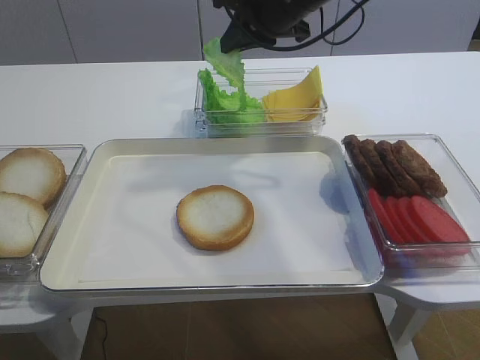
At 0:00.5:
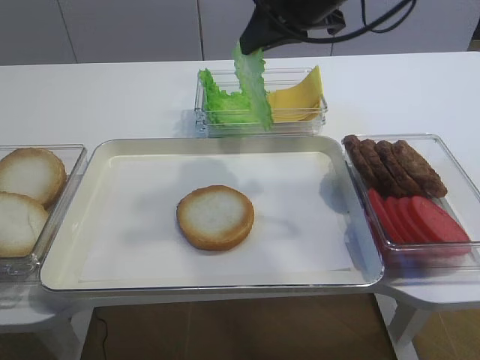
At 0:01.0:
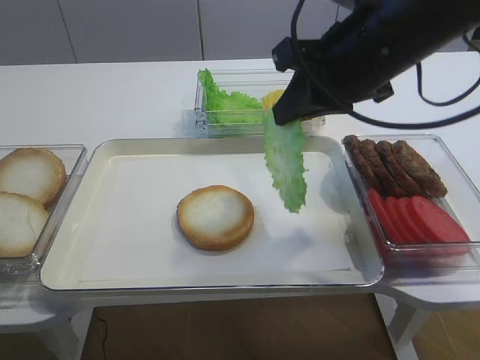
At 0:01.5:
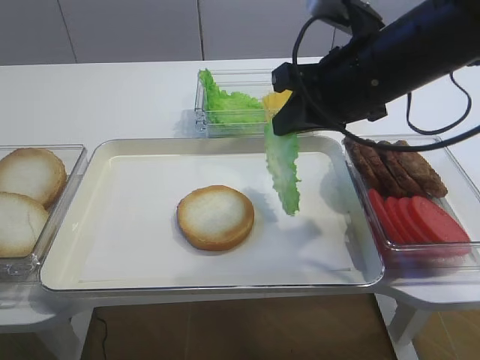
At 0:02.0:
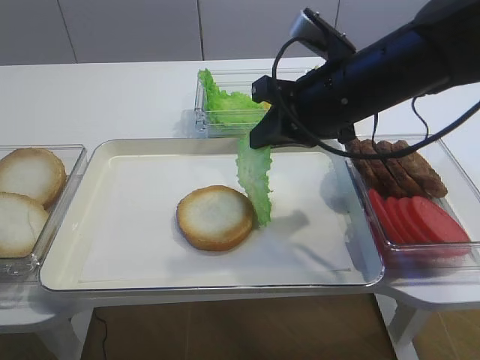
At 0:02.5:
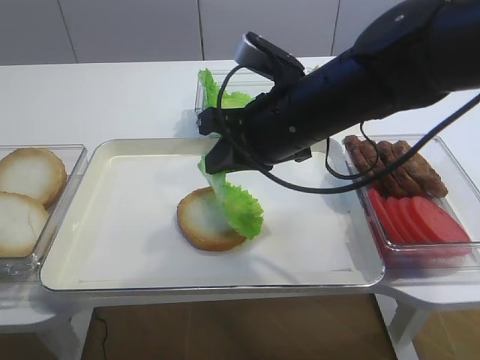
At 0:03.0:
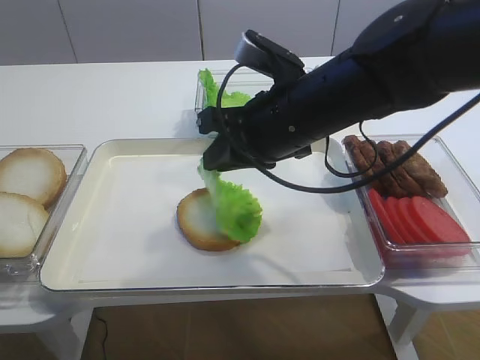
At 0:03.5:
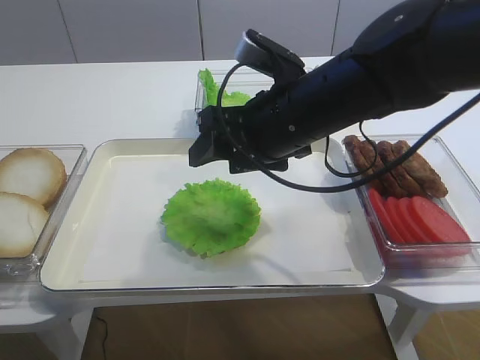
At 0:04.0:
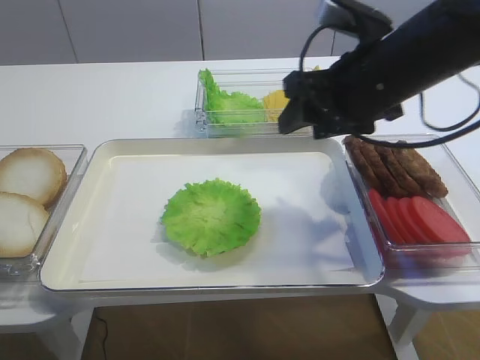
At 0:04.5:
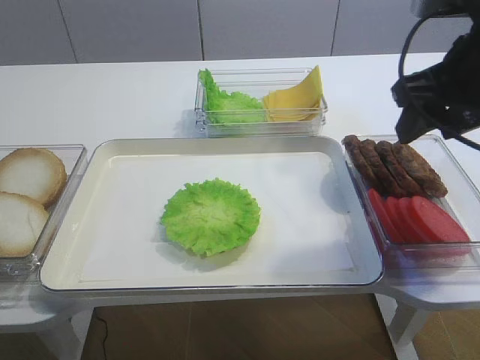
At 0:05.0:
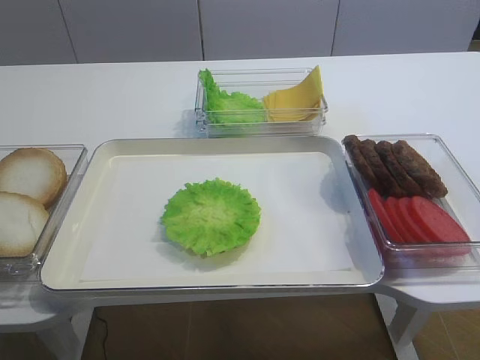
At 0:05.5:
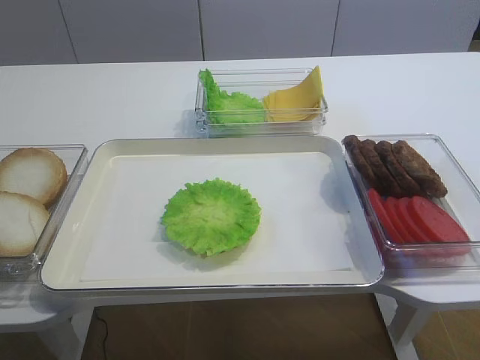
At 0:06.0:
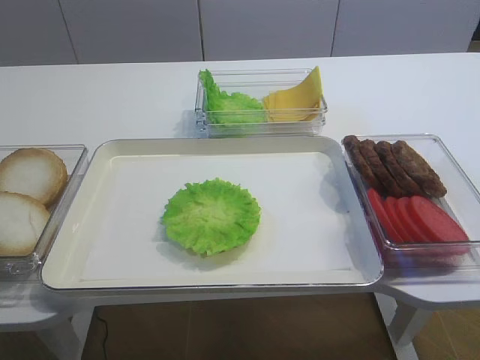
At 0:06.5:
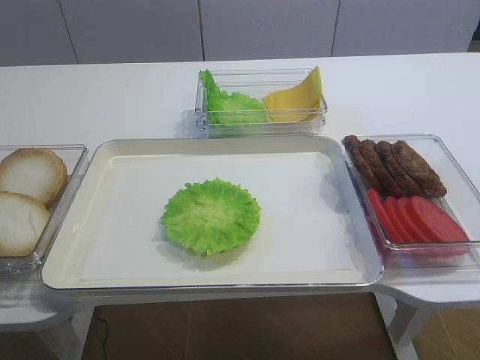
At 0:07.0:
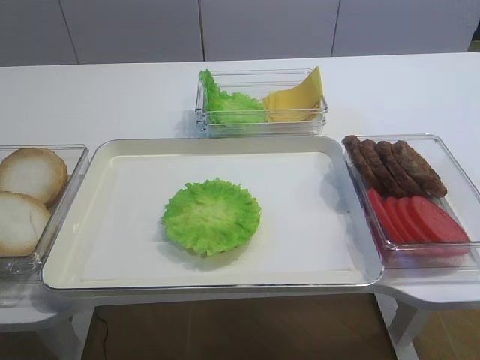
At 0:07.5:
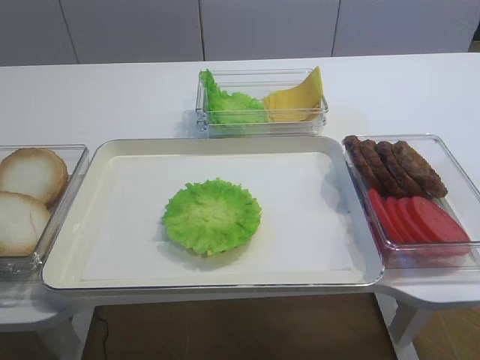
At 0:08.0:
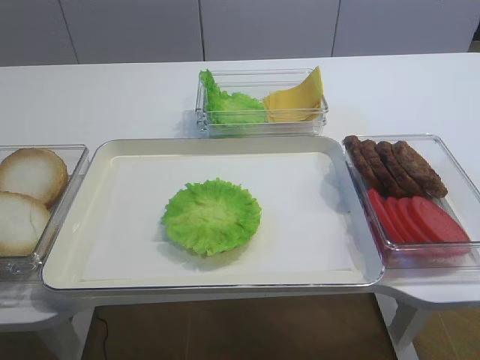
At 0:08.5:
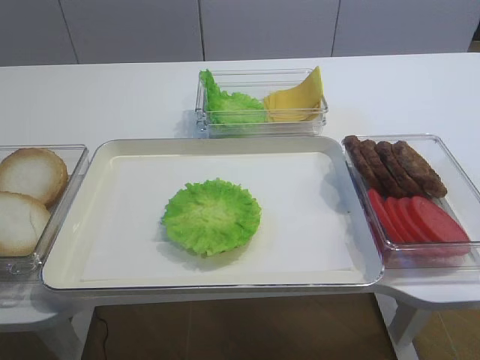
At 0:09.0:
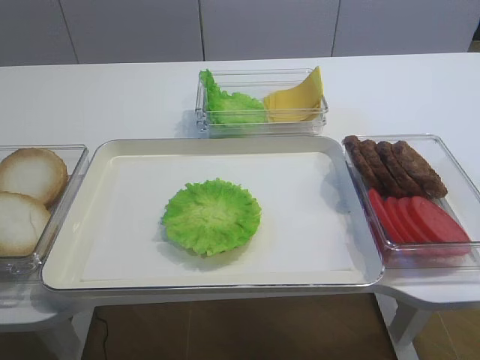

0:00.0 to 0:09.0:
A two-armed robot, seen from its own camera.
Step, 0:00.0 to 0:03.5: Place the lettuce leaf on the bread slice with the right gripper.
0:00.0 to 0:02.0: The right gripper shifts some 15 cm backward and downward.
0:02.0 to 0:04.5: The right gripper travels to the right and upward by some 10 cm, and opens up.
0:04.5 to 0:07.0: The right gripper heads backward, covering about 25 cm.

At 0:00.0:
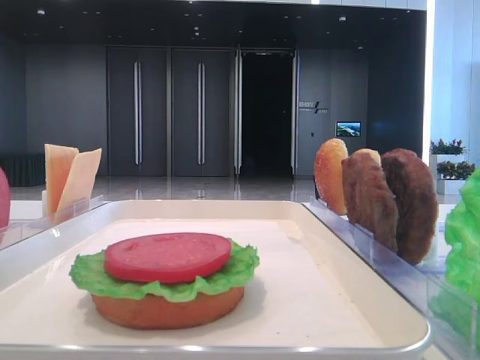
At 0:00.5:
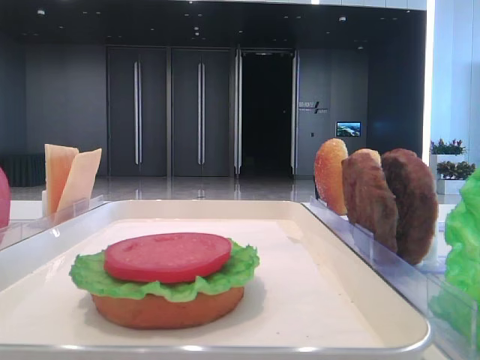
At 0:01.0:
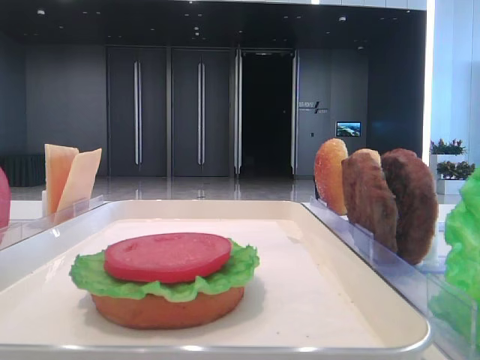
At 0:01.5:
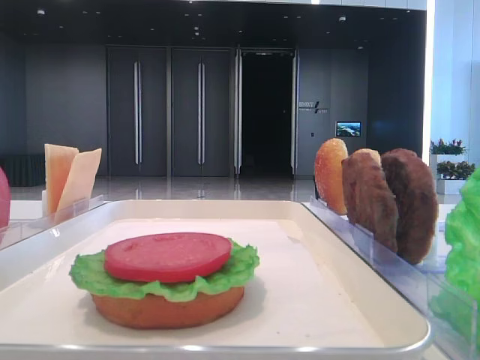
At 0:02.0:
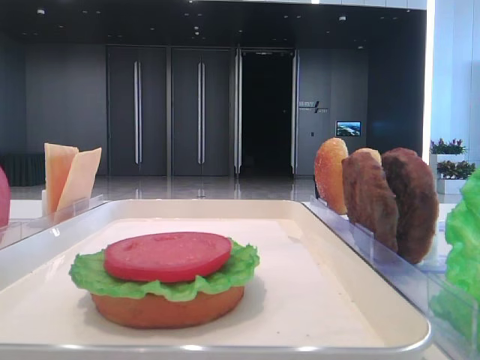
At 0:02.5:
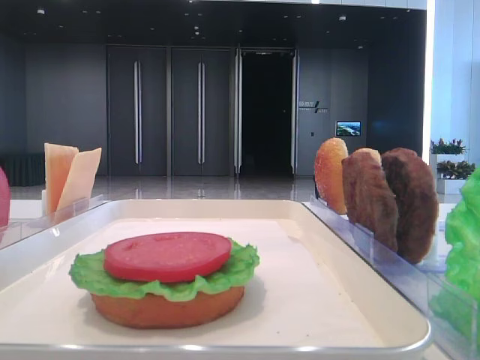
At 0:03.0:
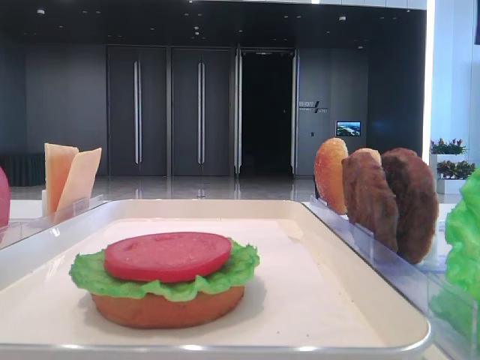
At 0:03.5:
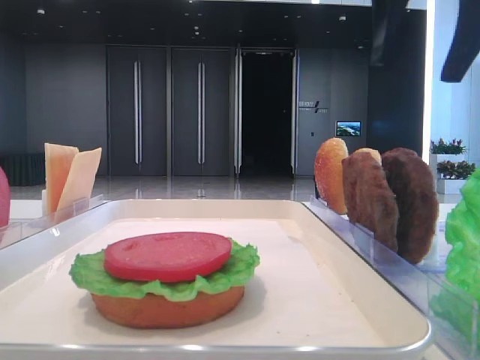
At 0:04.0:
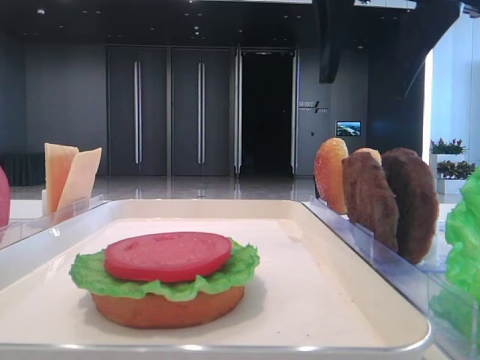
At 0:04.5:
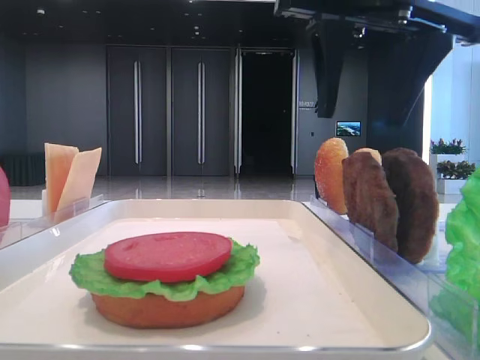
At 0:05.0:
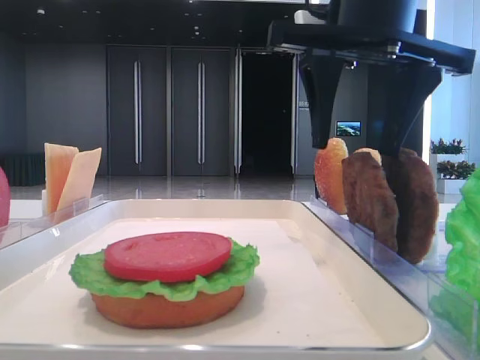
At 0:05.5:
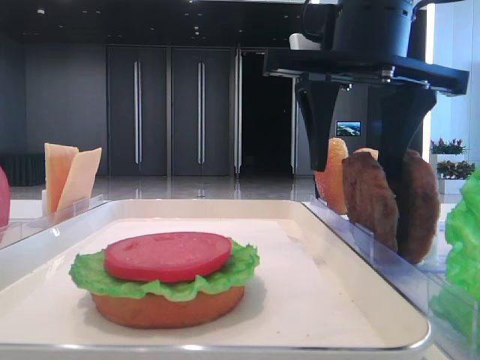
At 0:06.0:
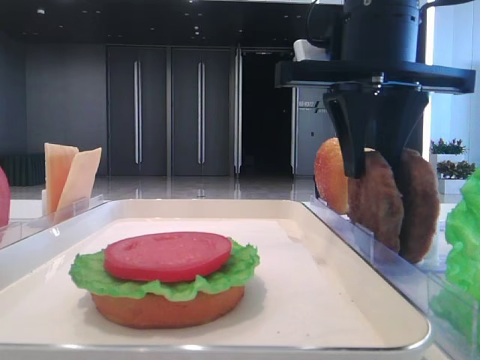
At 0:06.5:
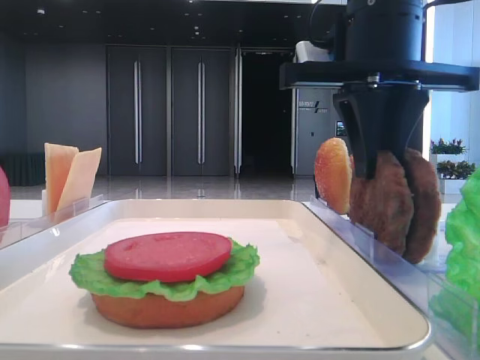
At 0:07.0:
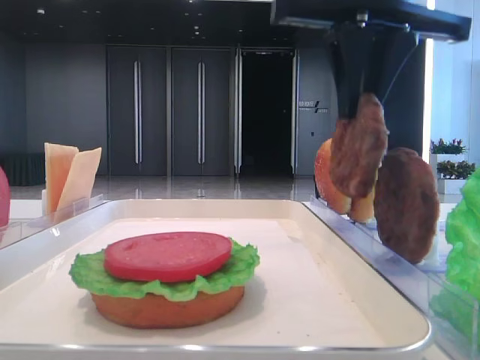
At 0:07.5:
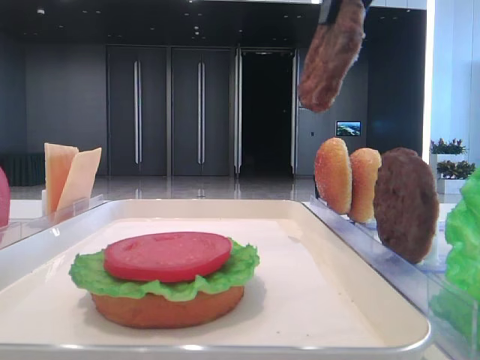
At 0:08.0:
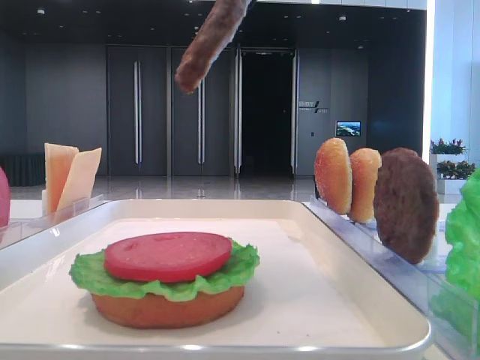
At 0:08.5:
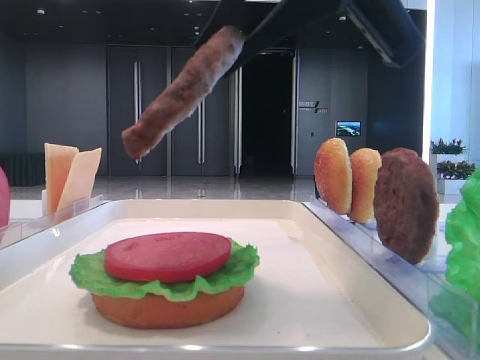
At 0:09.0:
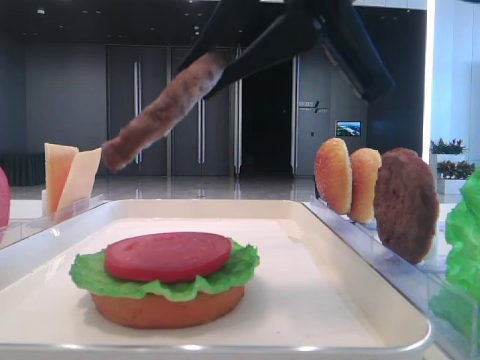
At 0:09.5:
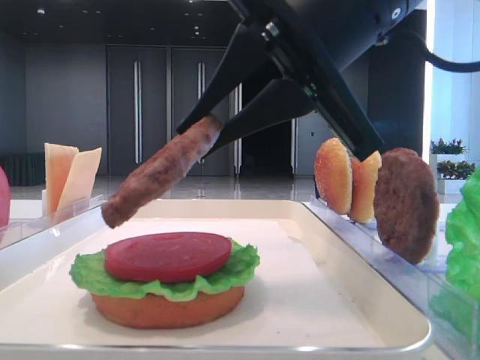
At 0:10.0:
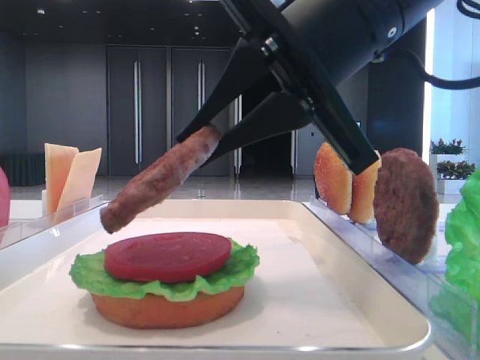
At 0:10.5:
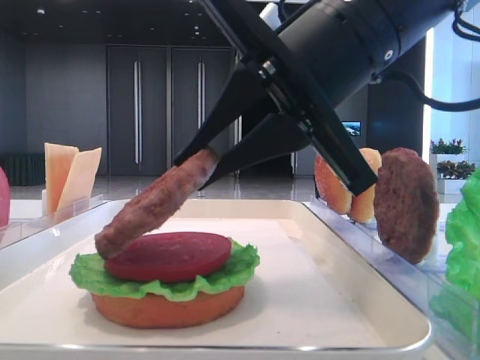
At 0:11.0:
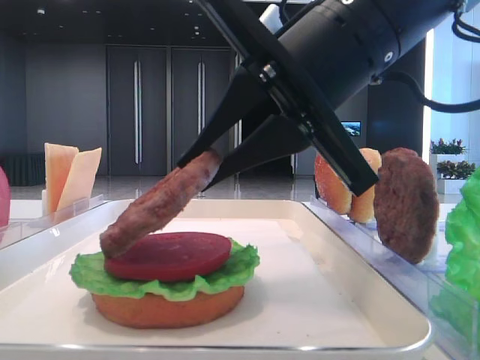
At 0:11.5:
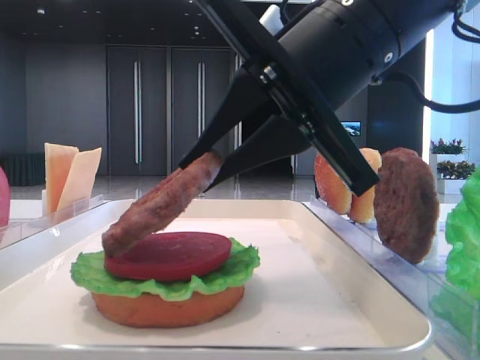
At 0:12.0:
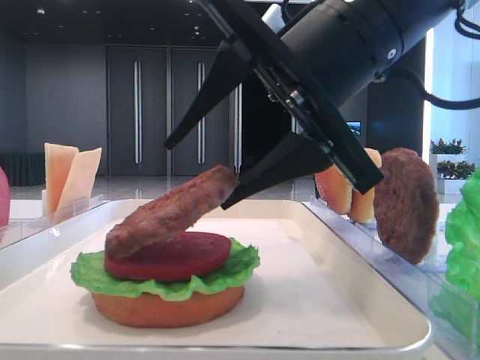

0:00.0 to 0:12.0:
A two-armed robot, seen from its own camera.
Step, 0:00.0 to 0:06.0: Grab the patty with the right hand.
0:02.0 to 0:04.0: The right gripper moves to the left, roughly 15 cm.
0:04.0 to 0:06.0: The right gripper goes roughly 5 cm downward, and closes its fingers.
0:06.0 to 0:08.0: The right gripper moves upward and backward, about 15 cm.
0:08.0 to 0:10.0: The right gripper travels downward by approximately 10 cm.
0:10.0 to 0:12.0: The right gripper opens up.

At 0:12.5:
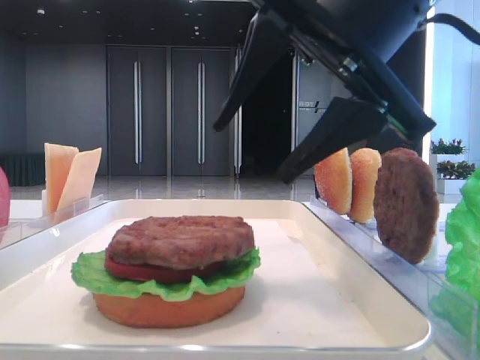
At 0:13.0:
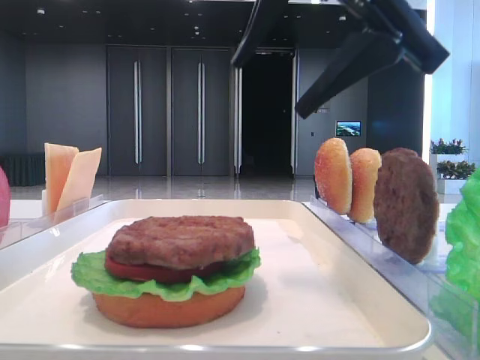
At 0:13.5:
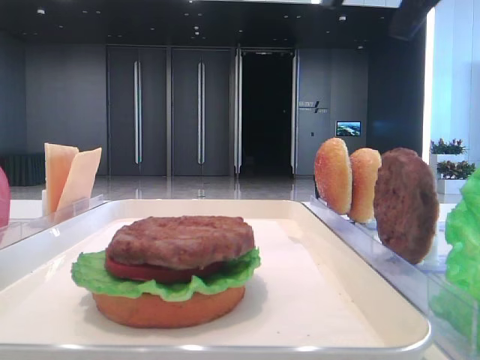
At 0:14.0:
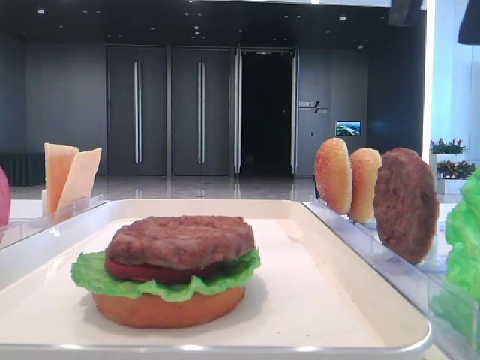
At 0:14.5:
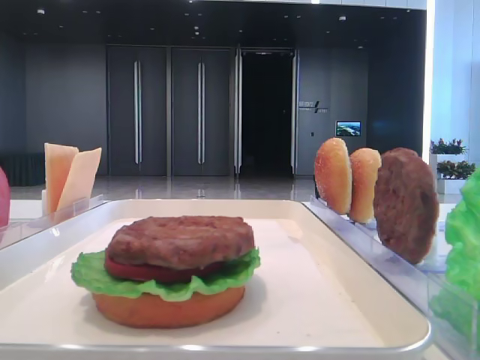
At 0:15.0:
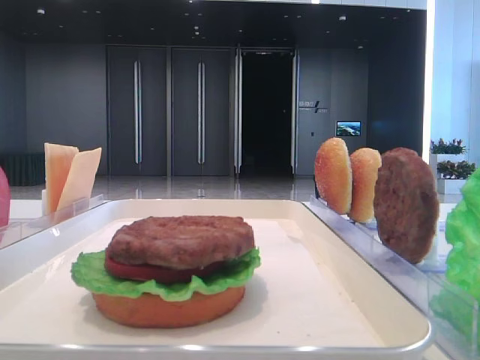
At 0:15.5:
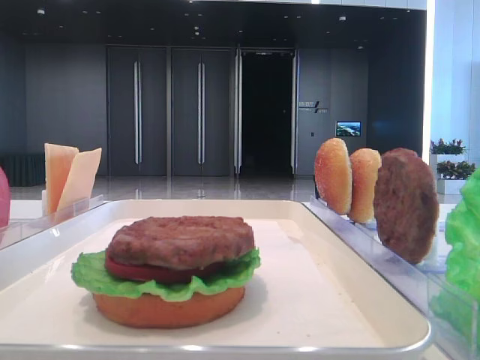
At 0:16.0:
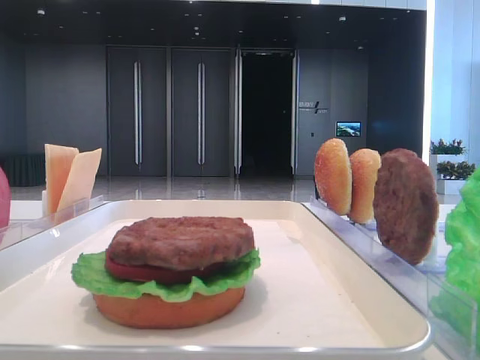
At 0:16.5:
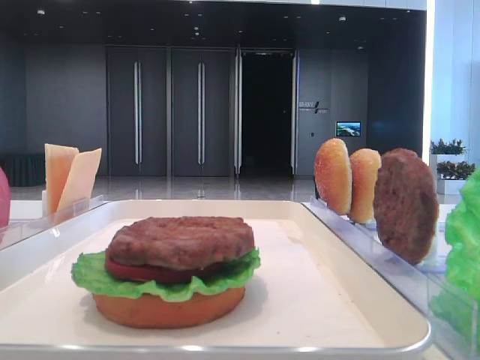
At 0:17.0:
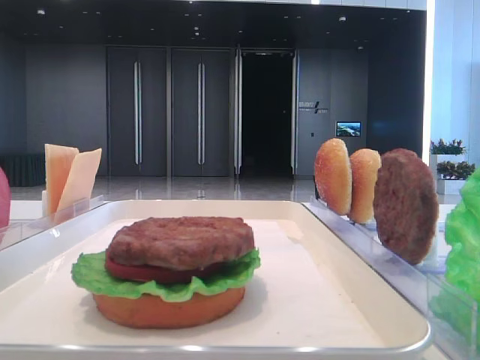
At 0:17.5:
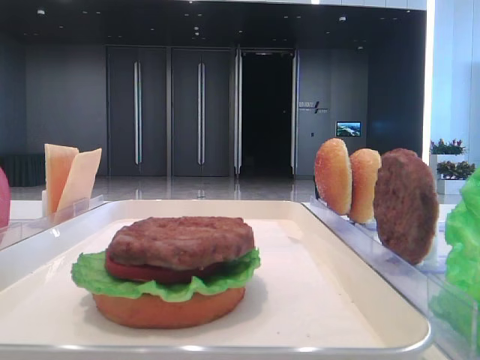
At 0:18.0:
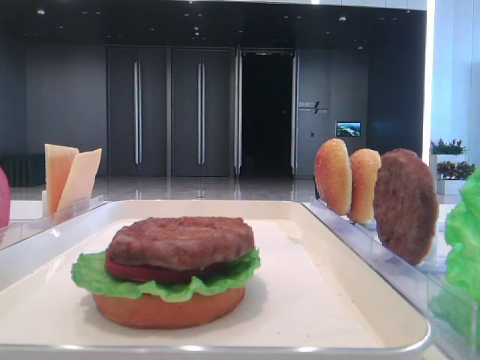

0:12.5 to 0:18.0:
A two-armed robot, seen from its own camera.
0:12.5 to 0:14.5: The right gripper moves to the right and upward, some 20 cm.
